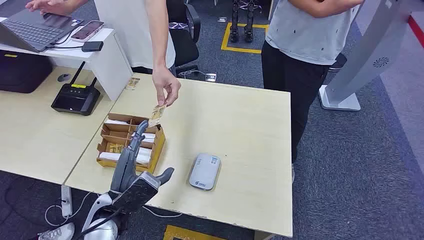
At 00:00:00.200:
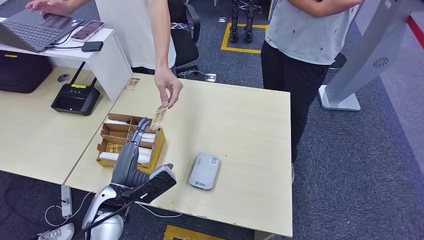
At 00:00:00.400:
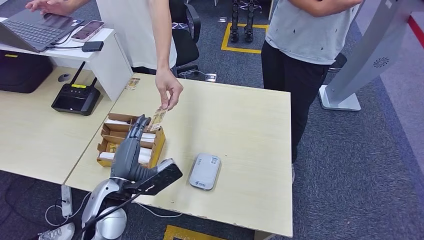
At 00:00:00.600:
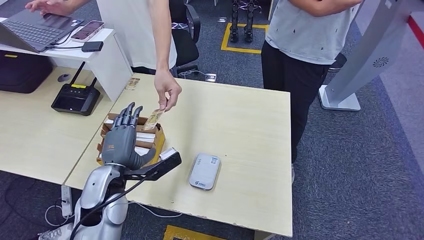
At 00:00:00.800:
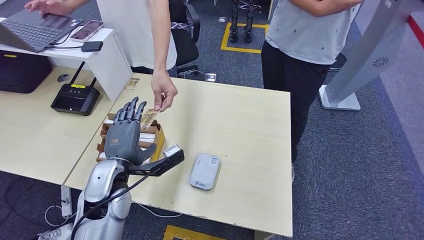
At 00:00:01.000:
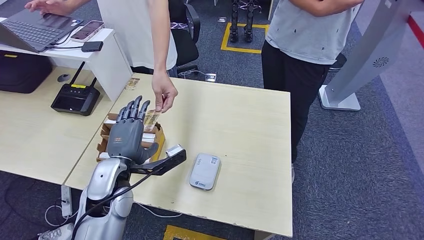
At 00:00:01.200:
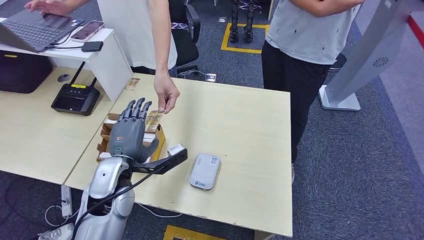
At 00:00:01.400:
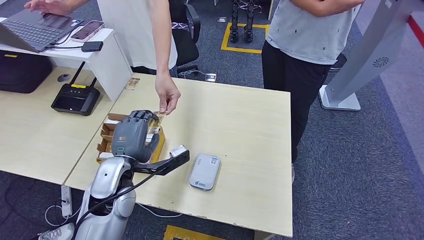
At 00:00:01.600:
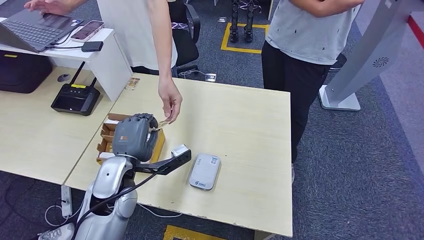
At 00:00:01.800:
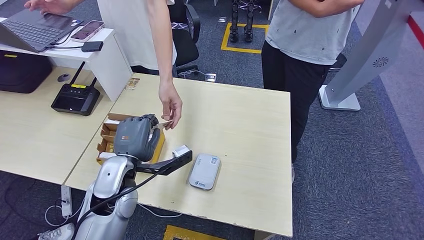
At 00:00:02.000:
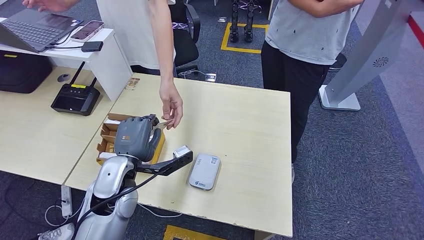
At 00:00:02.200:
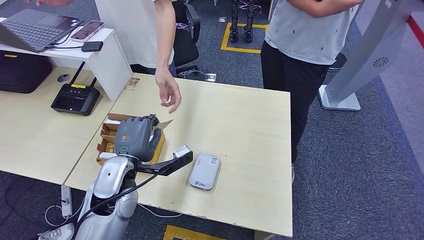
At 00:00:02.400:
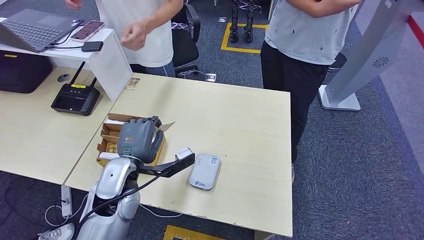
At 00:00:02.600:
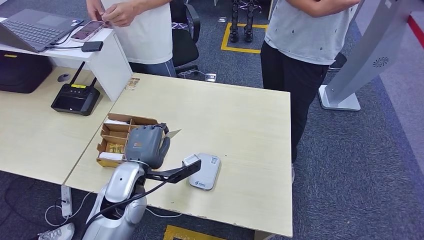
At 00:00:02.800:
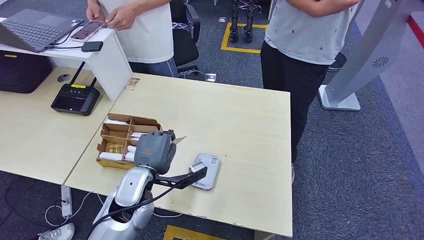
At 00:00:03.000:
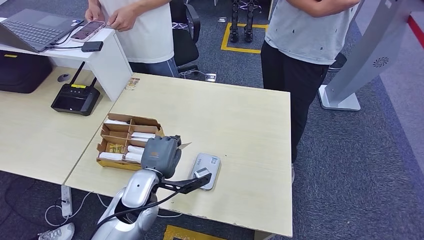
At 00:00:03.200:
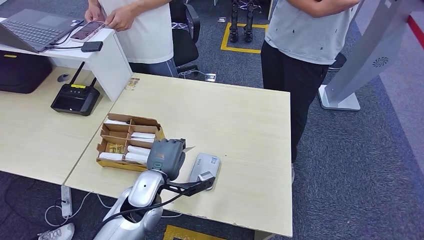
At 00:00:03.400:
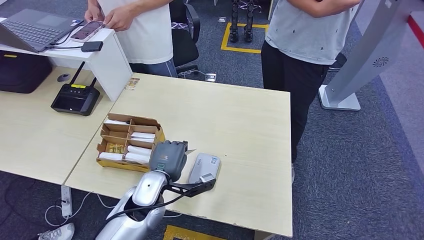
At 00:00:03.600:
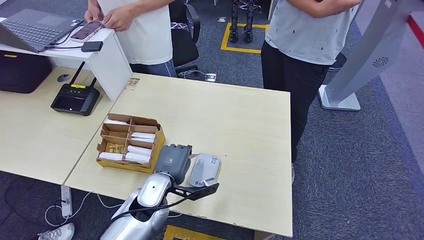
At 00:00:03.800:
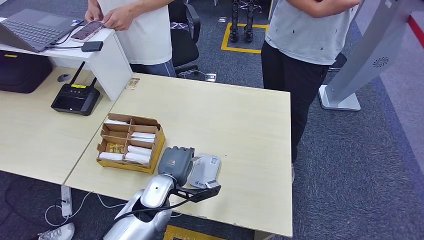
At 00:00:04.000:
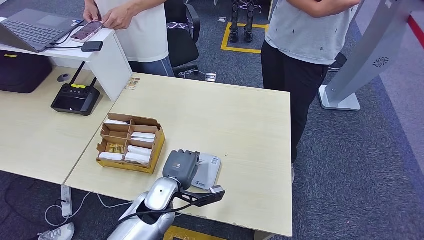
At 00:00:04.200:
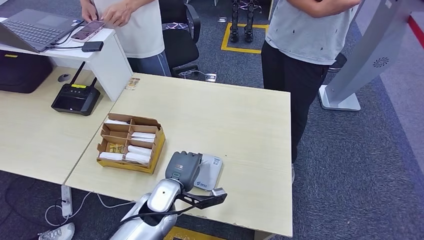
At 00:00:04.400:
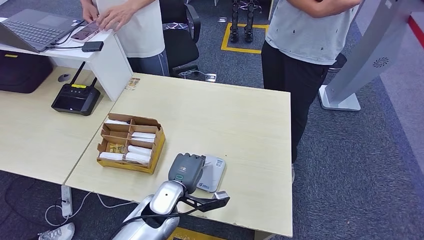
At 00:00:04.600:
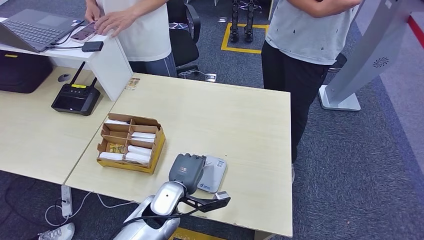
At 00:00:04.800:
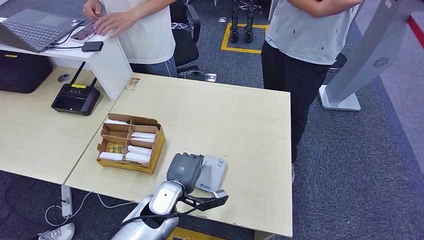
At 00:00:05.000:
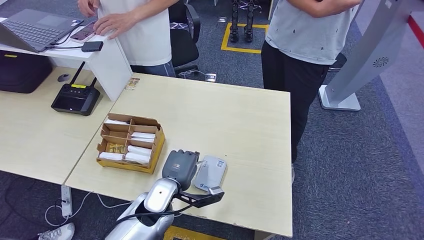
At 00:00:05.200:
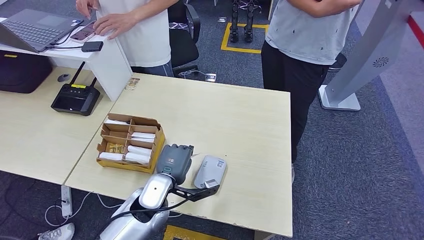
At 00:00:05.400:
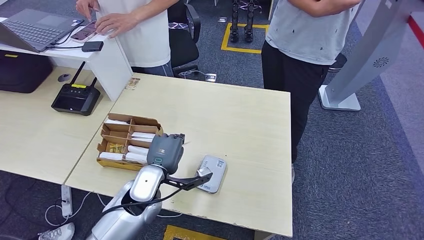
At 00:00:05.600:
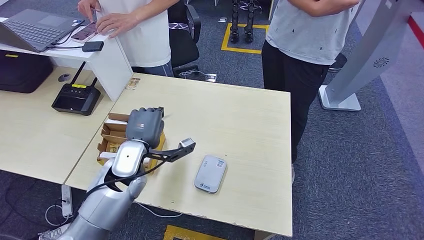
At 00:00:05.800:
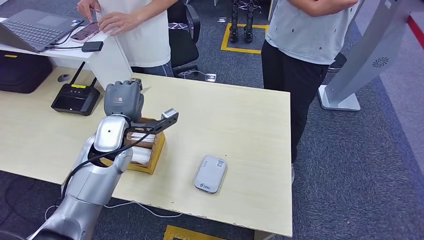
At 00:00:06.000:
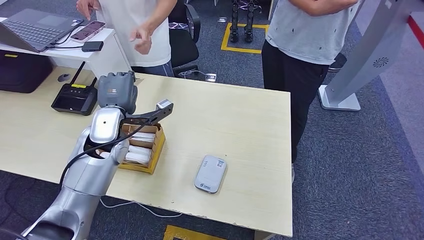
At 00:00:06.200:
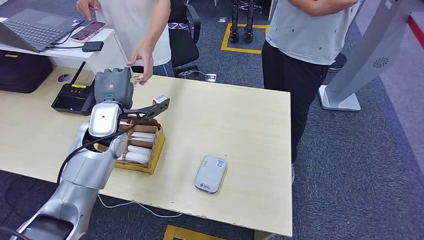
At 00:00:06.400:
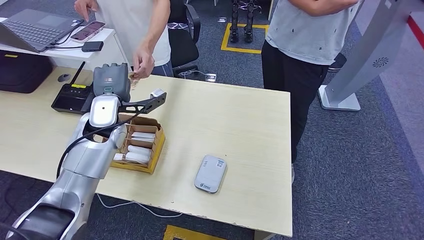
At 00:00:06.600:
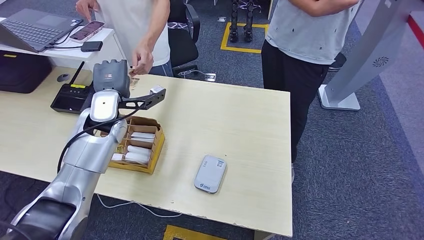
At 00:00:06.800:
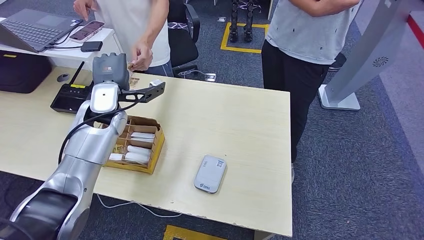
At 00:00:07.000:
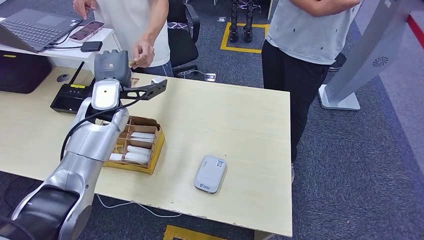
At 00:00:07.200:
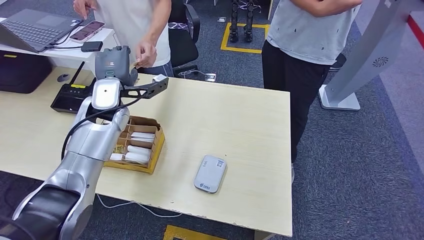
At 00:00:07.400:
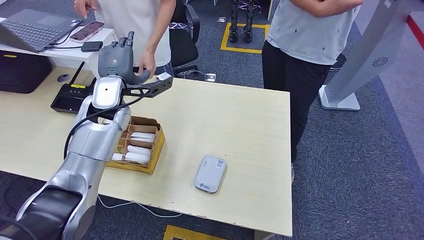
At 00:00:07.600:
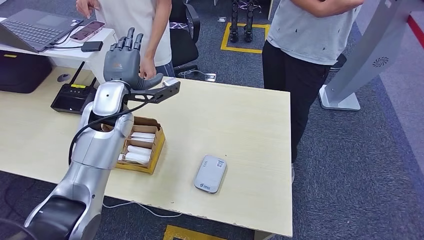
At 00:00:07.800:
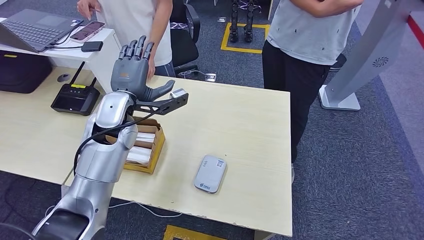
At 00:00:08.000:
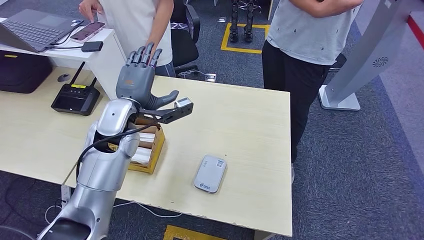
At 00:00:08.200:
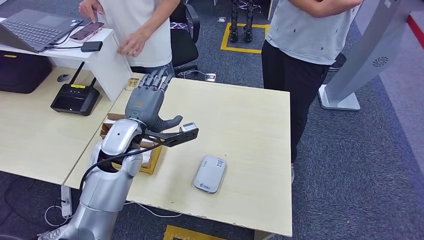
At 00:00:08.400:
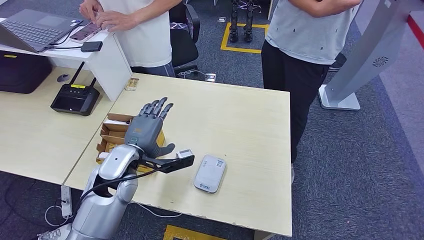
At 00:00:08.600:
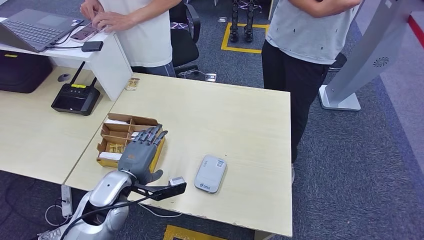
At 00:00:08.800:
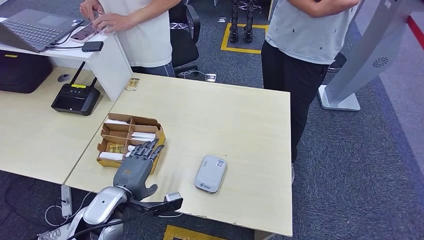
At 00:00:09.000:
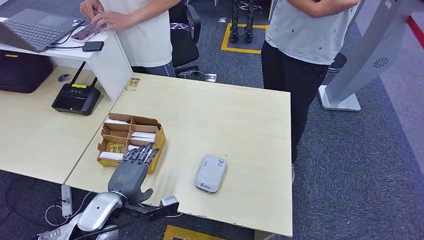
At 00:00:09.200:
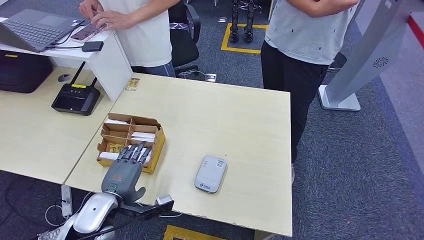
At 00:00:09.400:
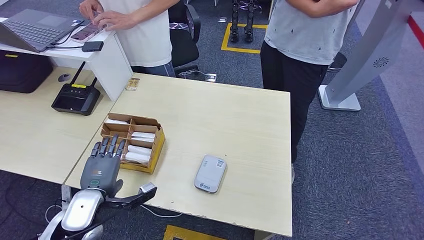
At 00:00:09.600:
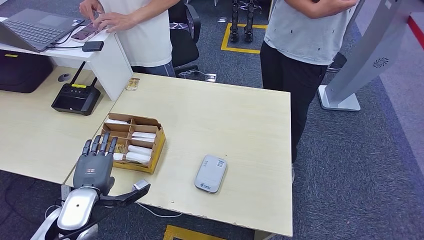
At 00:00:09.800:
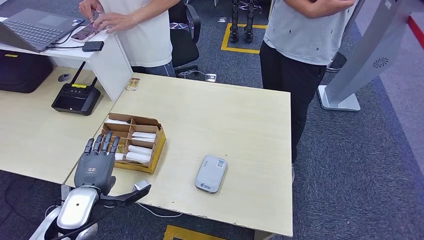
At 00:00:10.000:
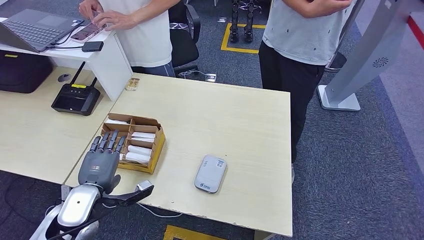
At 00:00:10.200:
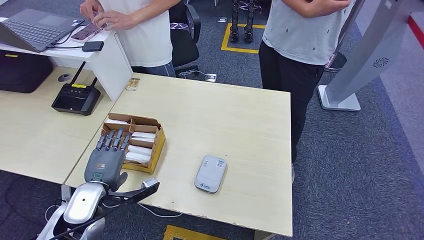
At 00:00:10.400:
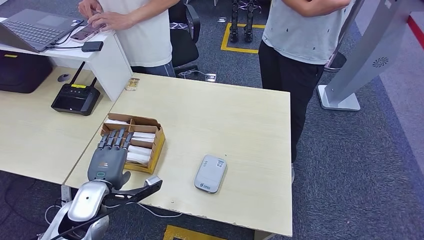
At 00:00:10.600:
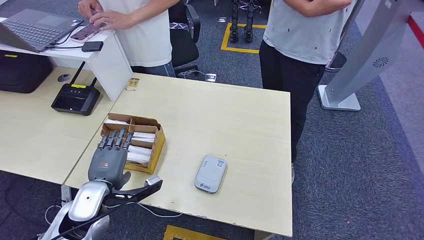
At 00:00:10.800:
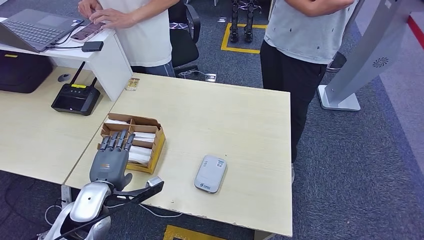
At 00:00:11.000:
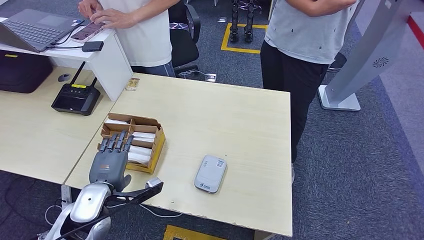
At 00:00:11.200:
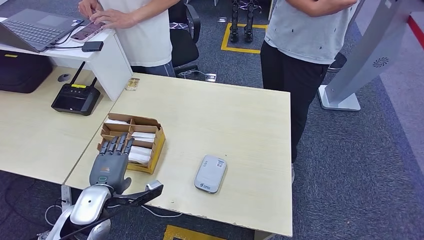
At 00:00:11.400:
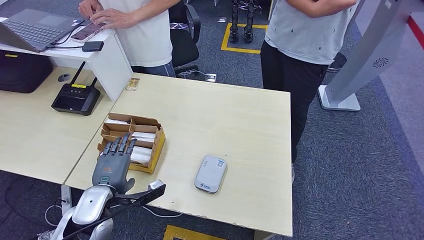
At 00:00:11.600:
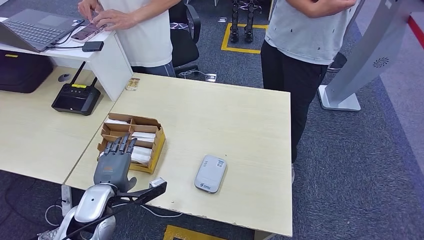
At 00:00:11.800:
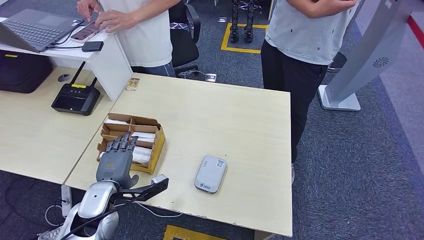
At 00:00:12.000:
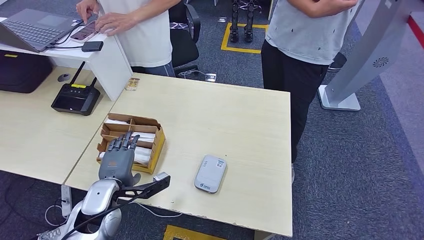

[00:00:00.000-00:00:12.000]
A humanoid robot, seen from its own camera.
Step, 00:00:00.000 to 00:00:03.000: Take the ID card from the person's hand.
Step, 00:00:03.200 to 00:00:04.200: Place the ID card on the card reader.
Step, 00:00:04.400 to 00:00:07.000: Hand the ID card to the person.
00:00:01.600 to 00:00:03.000: The left hand shifts by about 5 cm.
00:00:03.000 to 00:00:04.400: The left hand is displaced downward and to the right by roughly 5 cm.
00:00:04.400 to 00:00:06.000: The left hand goes some 25 cm to the left, upward and forward.
00:00:06.000 to 00:00:07.600: The left hand shifts by about 5 cm.
00:00:07.600 to 00:00:09.000: The left hand moves backward and downward, approximately 25 cm.
00:00:10.400 to 00:00:12.000: The hands make only small movements.

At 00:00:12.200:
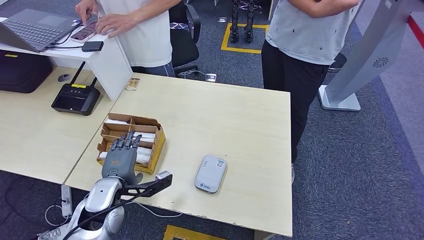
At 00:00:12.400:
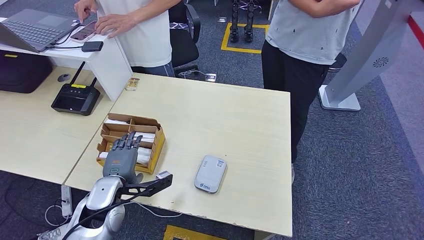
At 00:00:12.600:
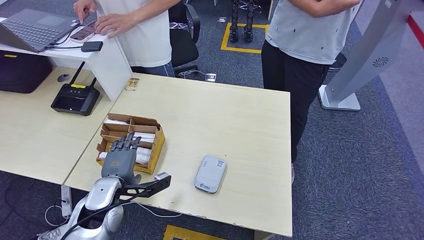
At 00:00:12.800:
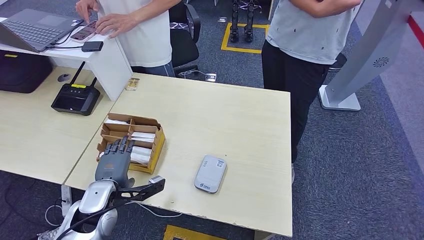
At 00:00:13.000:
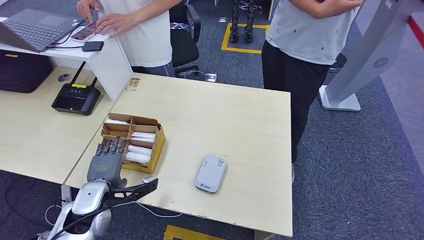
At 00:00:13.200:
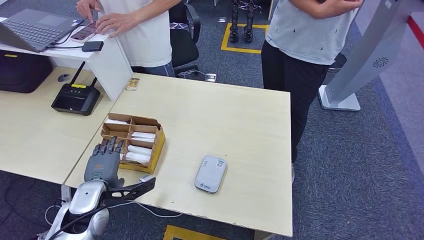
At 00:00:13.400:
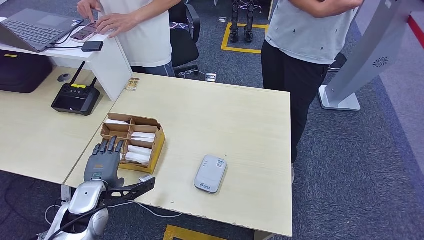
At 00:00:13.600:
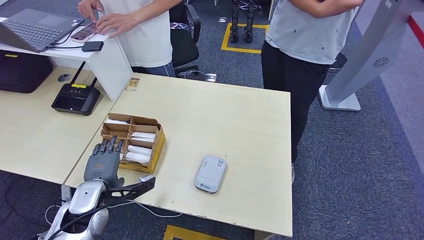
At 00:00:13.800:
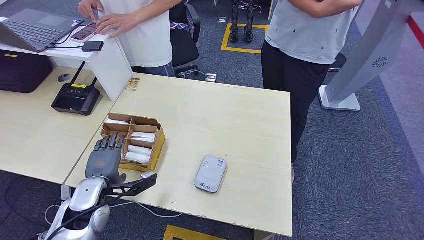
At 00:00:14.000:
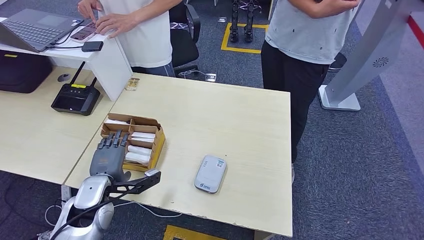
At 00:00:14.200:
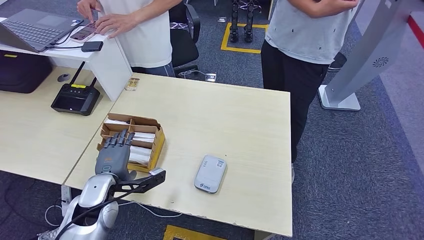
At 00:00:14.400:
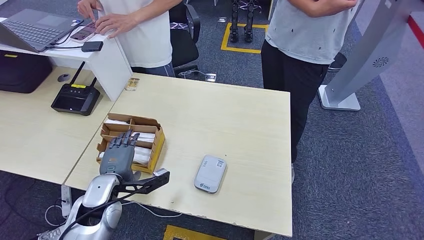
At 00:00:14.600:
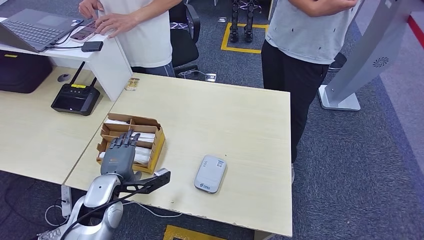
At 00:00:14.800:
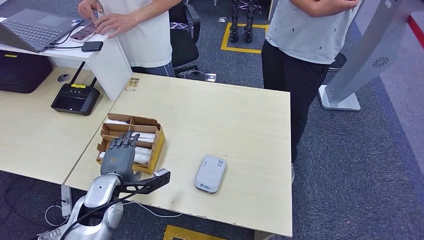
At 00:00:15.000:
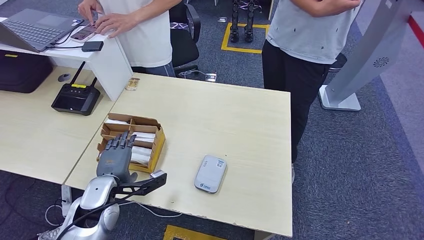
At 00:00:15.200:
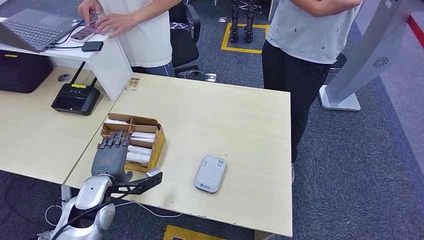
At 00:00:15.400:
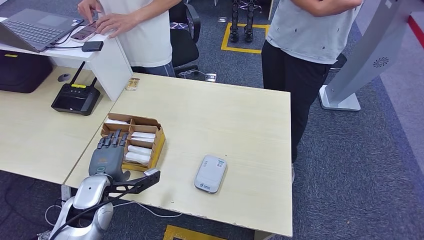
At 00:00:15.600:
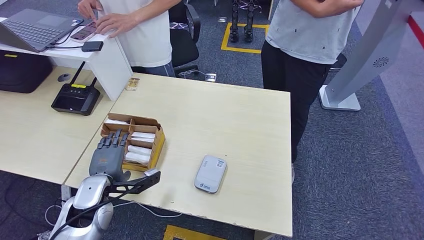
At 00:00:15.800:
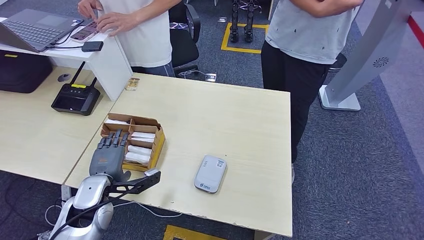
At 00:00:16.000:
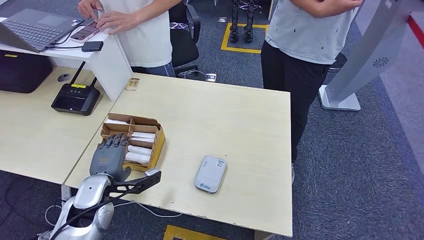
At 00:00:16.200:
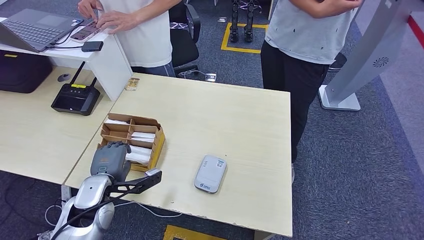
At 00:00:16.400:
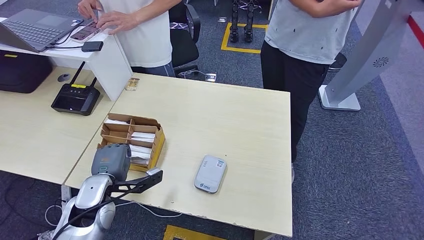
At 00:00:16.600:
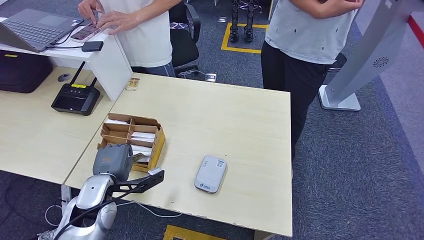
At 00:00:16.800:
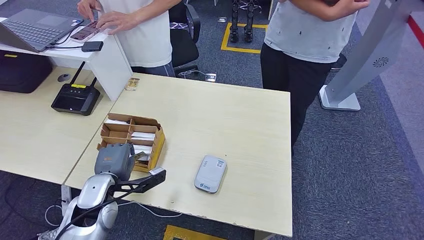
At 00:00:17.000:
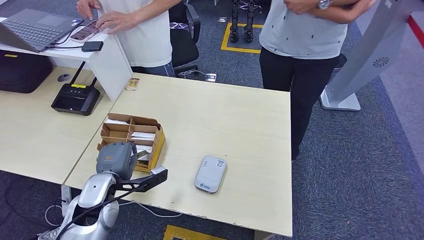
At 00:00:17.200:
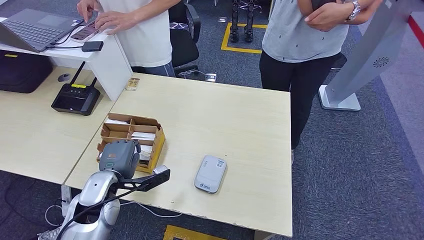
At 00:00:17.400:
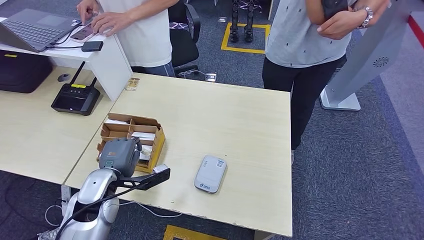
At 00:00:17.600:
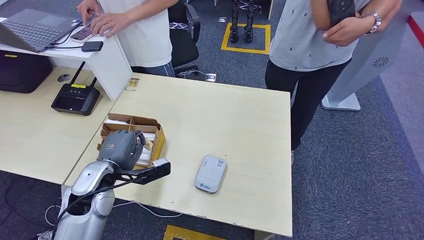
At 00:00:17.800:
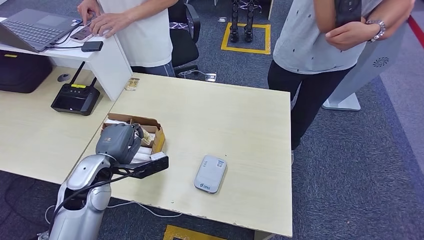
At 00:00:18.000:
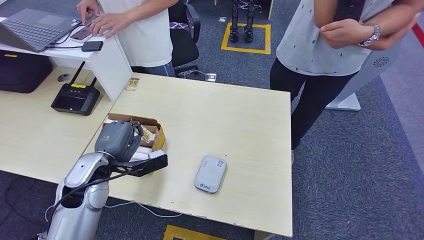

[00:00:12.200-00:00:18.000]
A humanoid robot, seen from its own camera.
Step, 00:00:12.200 to 00:00:17.400: Pick up the room key from the key card box.
00:00:12.200 to 00:00:16.600: The hands move only a little.
00:00:16.600 to 00:00:18.000: The left hand shifts about 5 cm upward.
